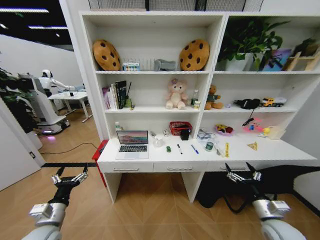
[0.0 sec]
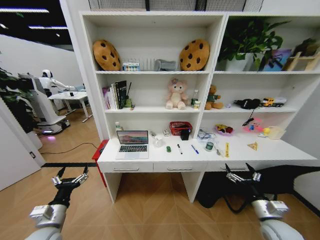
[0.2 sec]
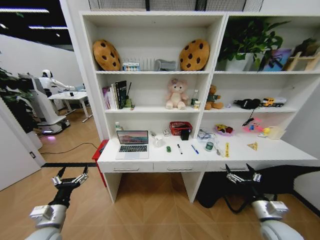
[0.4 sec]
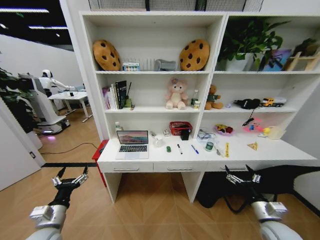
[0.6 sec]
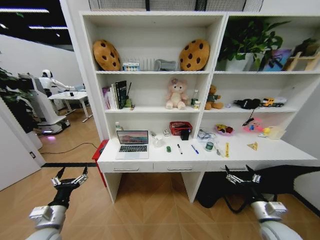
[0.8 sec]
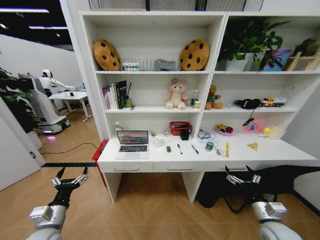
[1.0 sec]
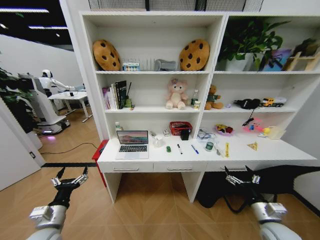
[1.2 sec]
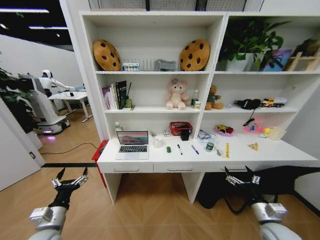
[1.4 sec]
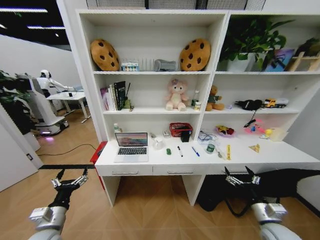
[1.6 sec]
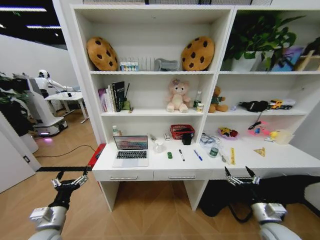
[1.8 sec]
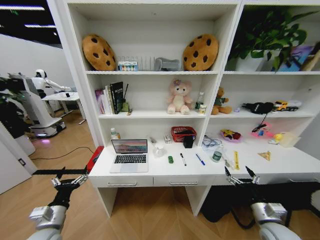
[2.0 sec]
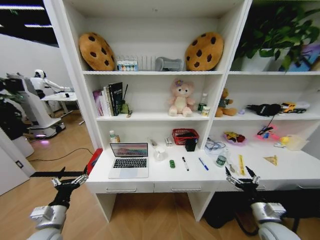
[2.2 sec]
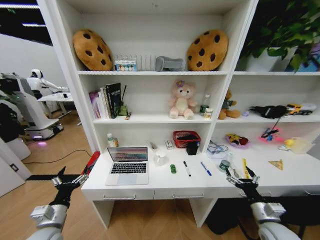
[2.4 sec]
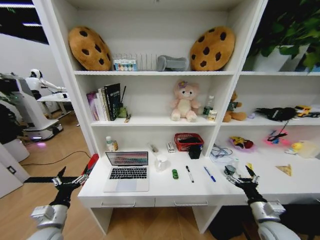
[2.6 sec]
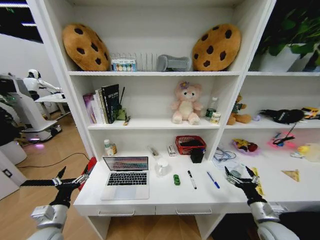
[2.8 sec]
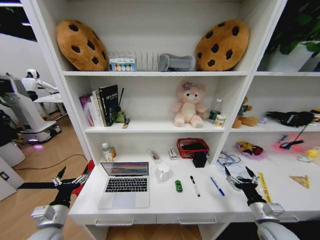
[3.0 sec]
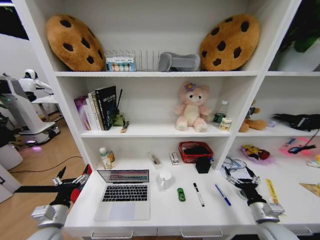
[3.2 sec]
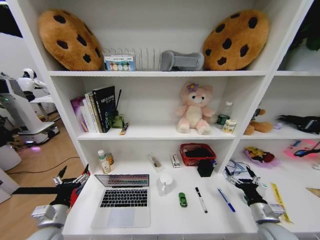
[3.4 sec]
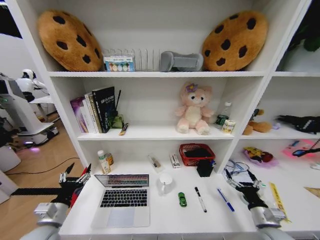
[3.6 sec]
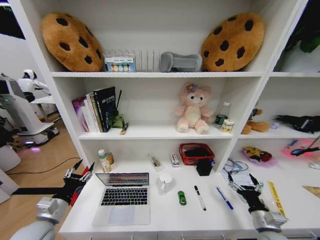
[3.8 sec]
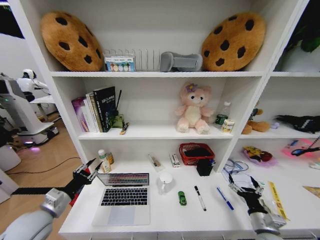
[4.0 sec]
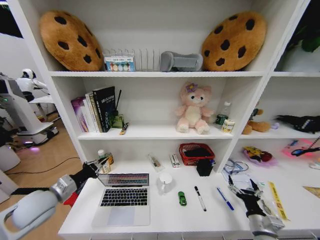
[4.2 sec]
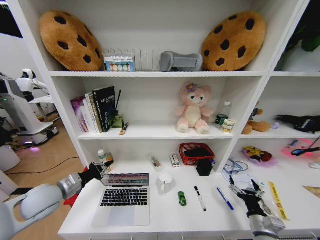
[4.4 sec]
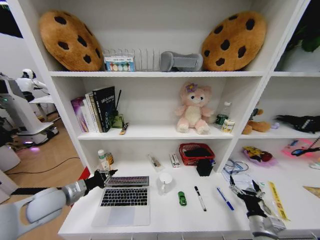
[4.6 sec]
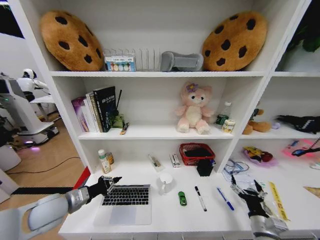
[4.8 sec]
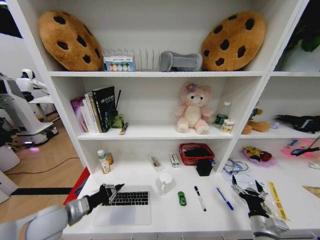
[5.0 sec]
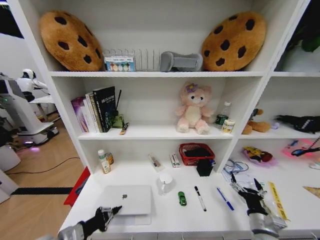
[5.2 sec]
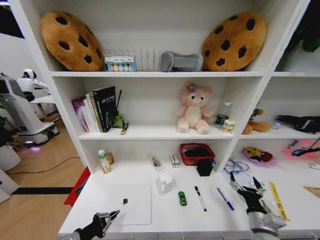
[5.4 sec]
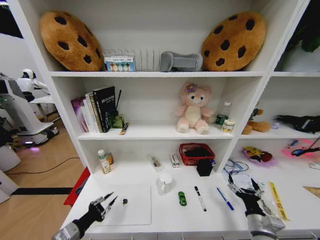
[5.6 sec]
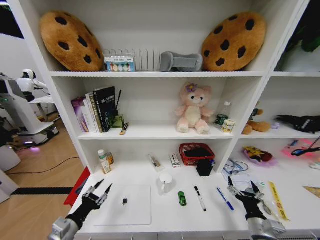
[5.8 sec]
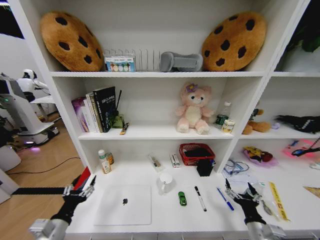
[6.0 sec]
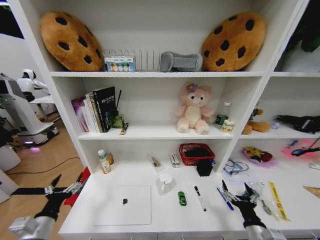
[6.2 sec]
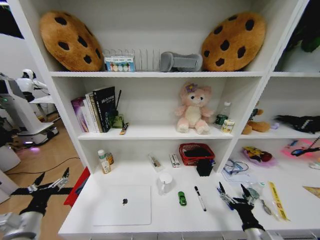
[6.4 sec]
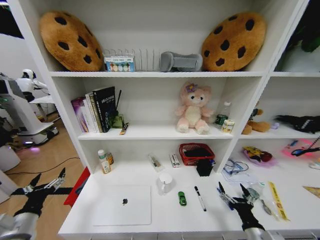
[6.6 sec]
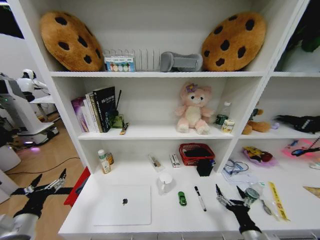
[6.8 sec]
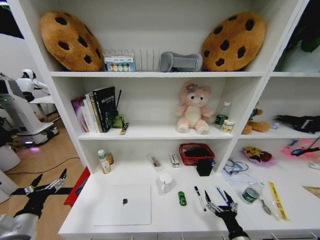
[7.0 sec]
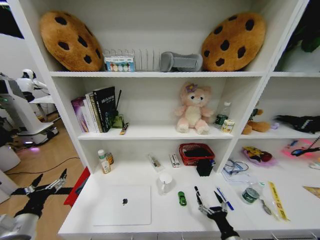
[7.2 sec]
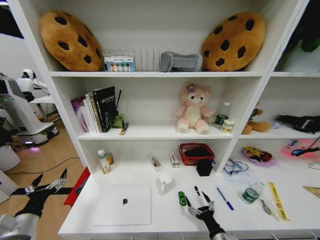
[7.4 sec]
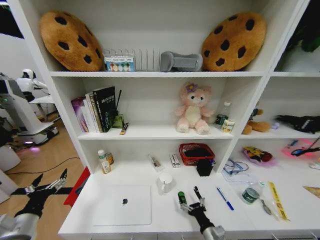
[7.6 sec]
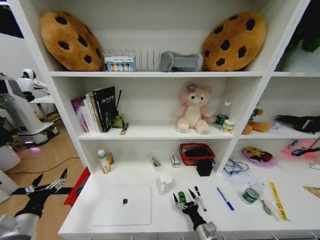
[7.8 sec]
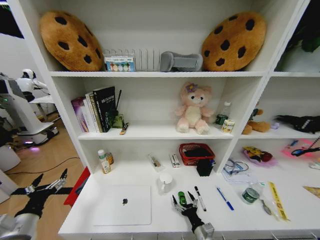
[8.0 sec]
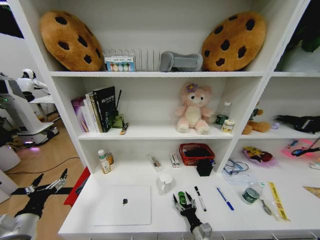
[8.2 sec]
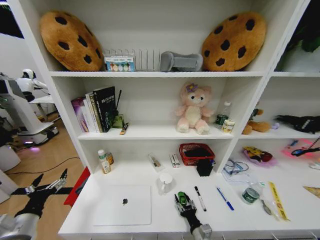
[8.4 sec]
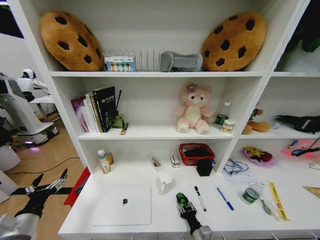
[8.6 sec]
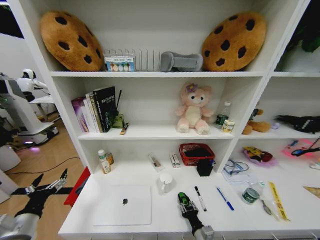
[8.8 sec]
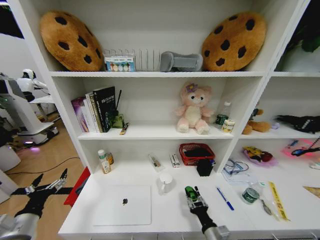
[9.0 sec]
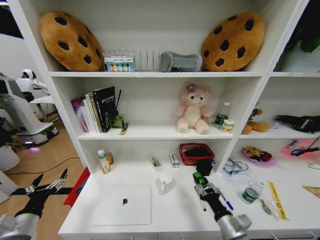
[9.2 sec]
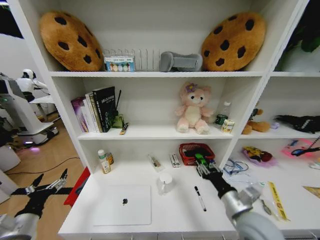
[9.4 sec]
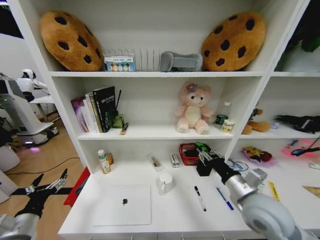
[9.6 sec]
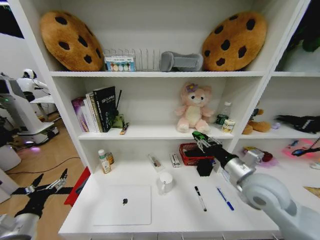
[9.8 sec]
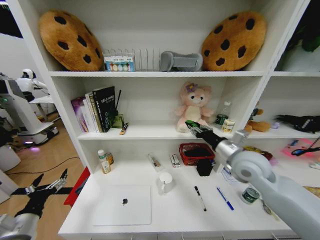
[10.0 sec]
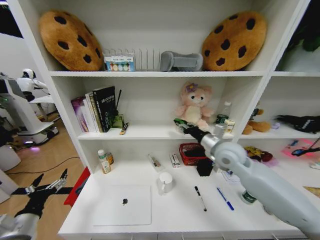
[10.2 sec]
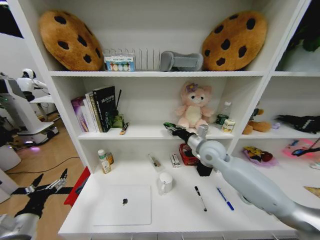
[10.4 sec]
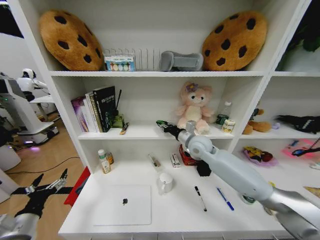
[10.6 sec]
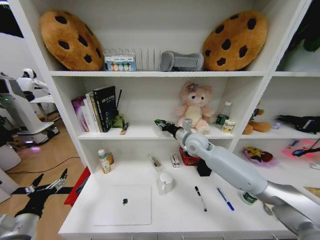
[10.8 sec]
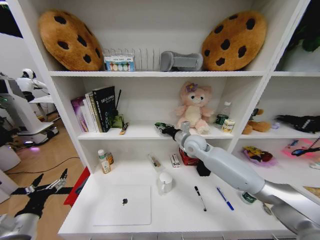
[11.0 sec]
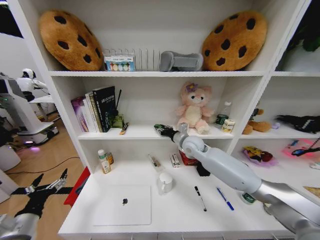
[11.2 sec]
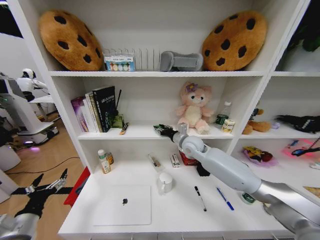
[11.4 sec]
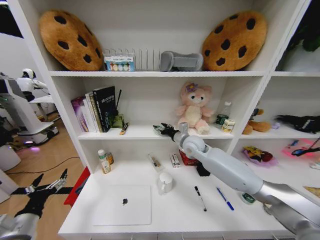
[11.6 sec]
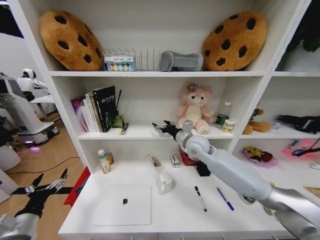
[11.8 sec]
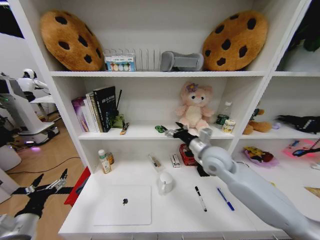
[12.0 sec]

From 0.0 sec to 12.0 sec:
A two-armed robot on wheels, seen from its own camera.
Task of the whole recording: Organize the objects on the table.
From 3.0 sec to 4.4 sec: The right gripper moves about 5 cm. Meanwhile the left gripper heads forward and upward, covering about 15 cm, and closes.
From 4.4 sec to 6.0 sec: The left gripper goes approximately 15 cm backward and downward, and opens up.
From 6.0 sec to 7.6 sec: The right gripper moves to the left and downward, roughly 15 cm; the left gripper moves to the left, roughly 10 cm.
From 7.6 sec to 9.0 sec: The right gripper closes.
From 9.0 sec to 10.4 sec: The right gripper goes approximately 40 cm forward and upward.
From 10.4 sec to 12.0 sec: The right gripper opens up.

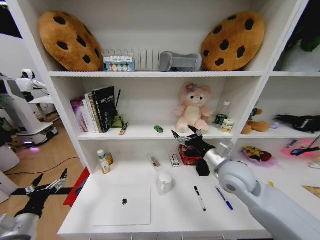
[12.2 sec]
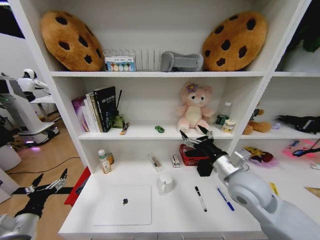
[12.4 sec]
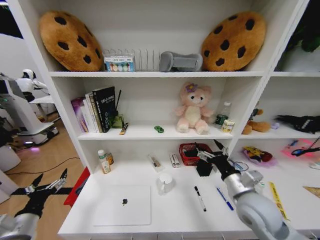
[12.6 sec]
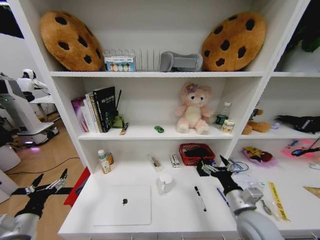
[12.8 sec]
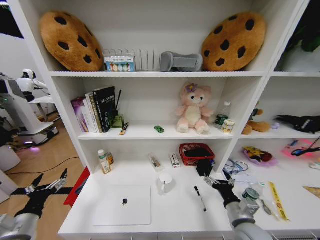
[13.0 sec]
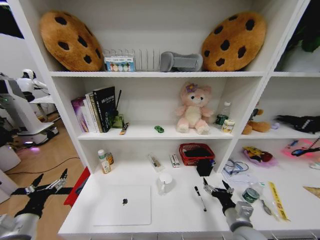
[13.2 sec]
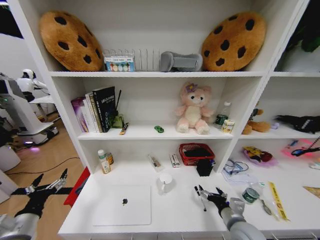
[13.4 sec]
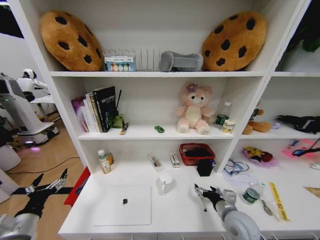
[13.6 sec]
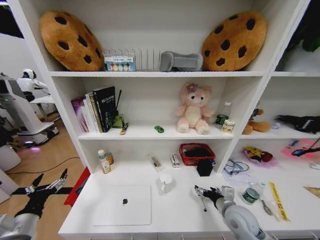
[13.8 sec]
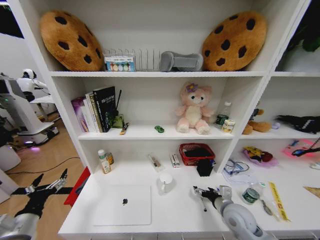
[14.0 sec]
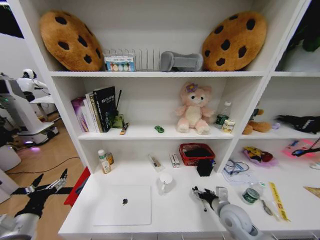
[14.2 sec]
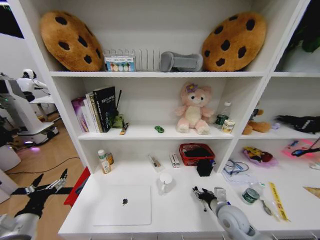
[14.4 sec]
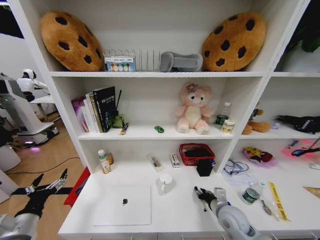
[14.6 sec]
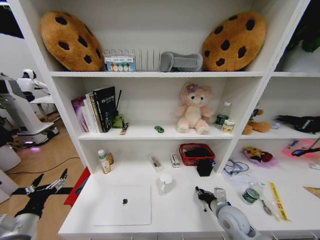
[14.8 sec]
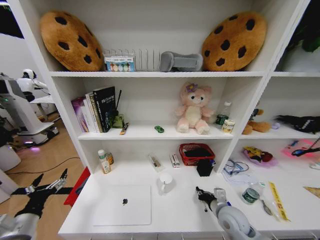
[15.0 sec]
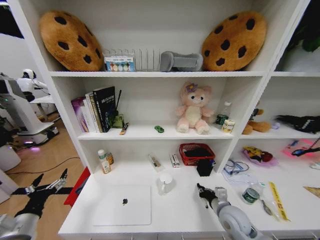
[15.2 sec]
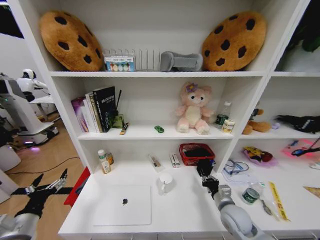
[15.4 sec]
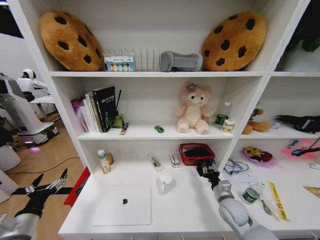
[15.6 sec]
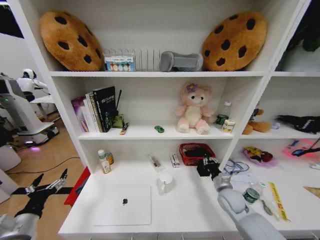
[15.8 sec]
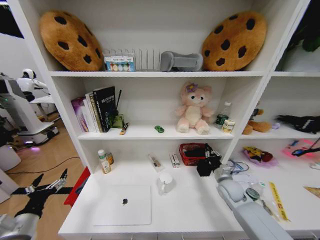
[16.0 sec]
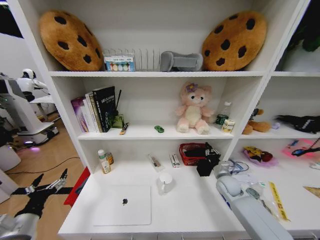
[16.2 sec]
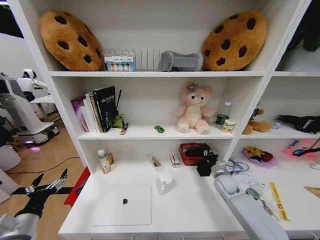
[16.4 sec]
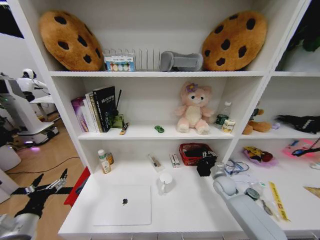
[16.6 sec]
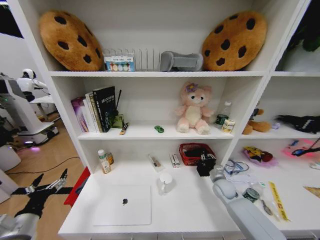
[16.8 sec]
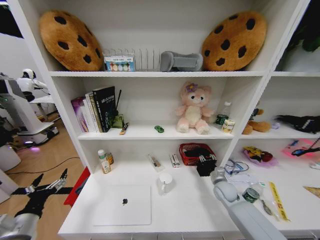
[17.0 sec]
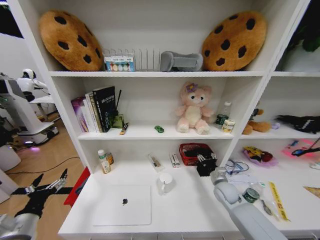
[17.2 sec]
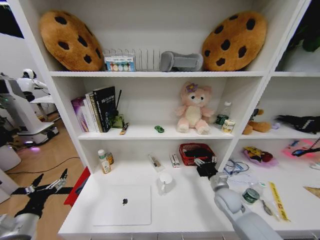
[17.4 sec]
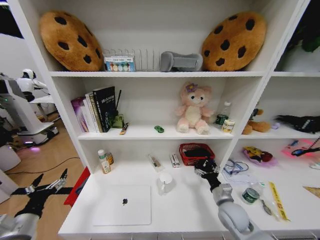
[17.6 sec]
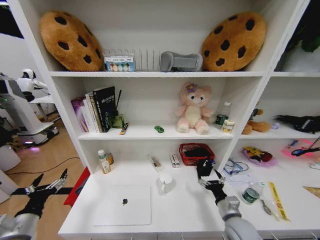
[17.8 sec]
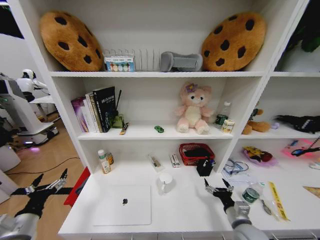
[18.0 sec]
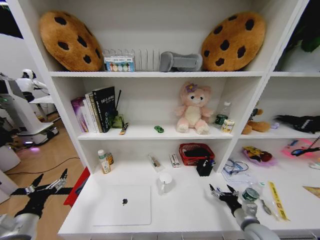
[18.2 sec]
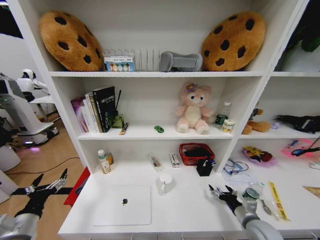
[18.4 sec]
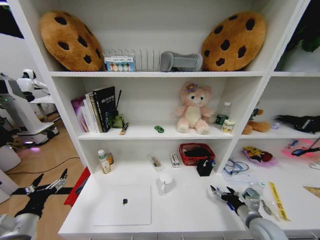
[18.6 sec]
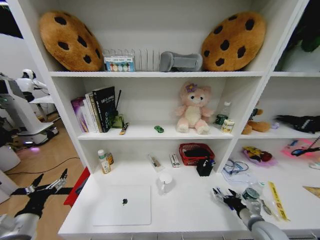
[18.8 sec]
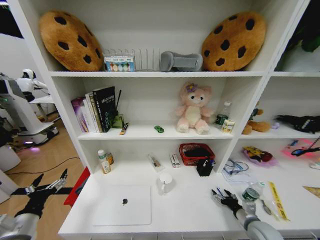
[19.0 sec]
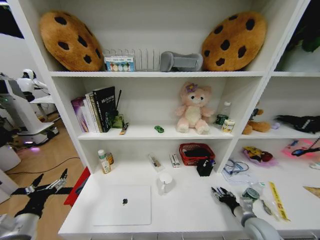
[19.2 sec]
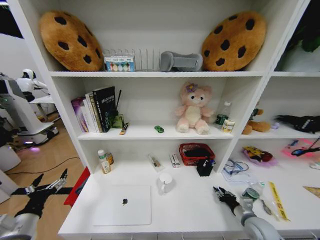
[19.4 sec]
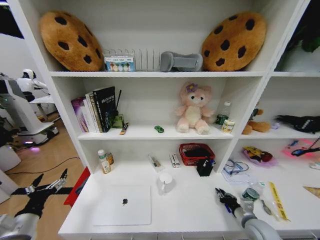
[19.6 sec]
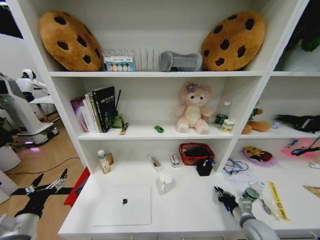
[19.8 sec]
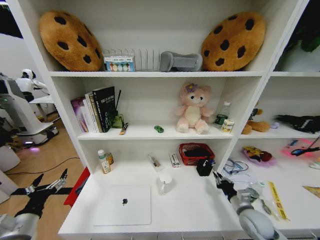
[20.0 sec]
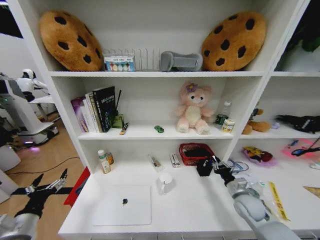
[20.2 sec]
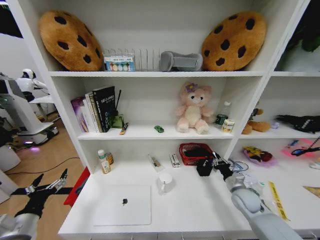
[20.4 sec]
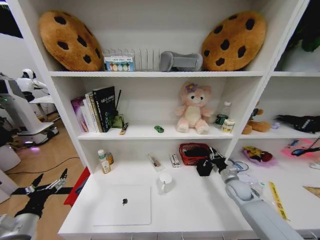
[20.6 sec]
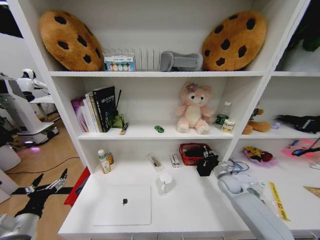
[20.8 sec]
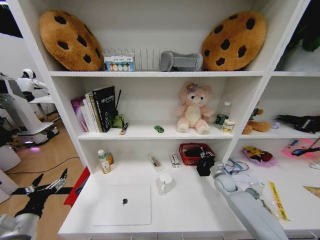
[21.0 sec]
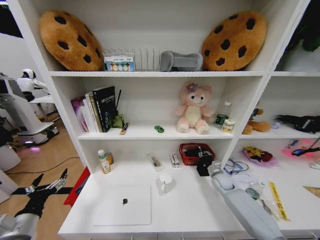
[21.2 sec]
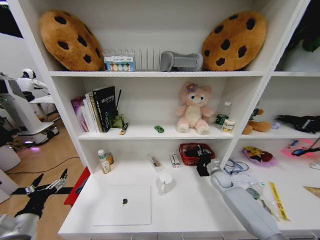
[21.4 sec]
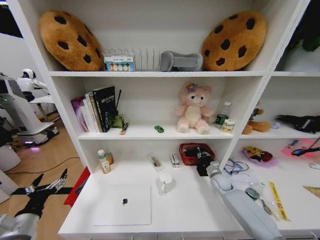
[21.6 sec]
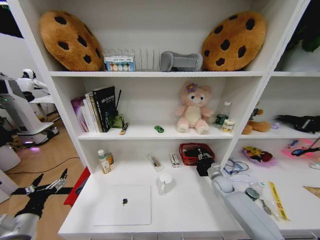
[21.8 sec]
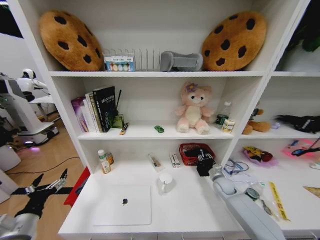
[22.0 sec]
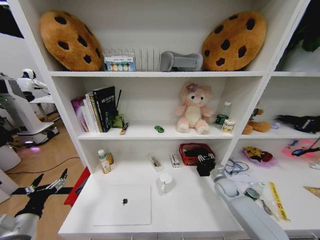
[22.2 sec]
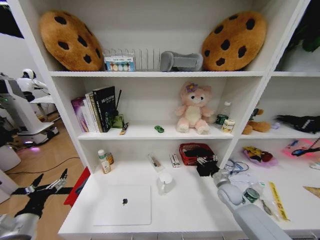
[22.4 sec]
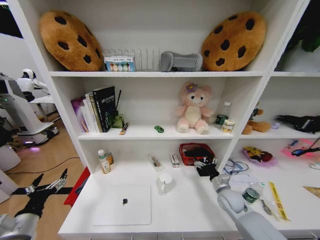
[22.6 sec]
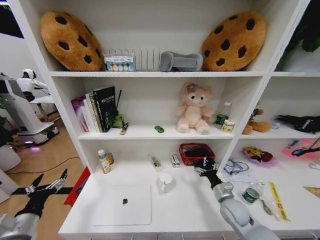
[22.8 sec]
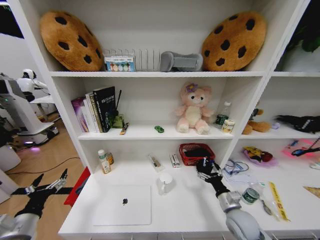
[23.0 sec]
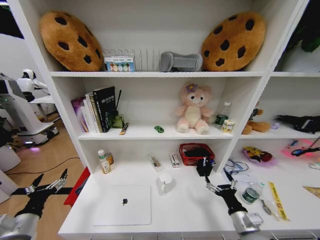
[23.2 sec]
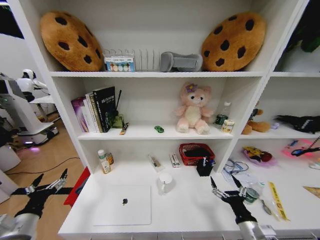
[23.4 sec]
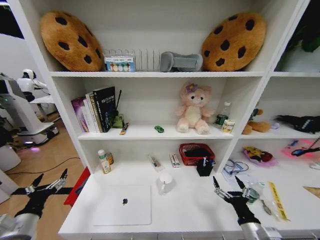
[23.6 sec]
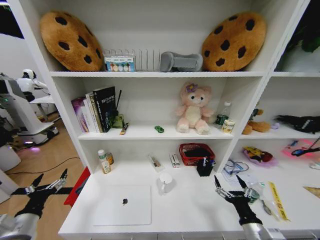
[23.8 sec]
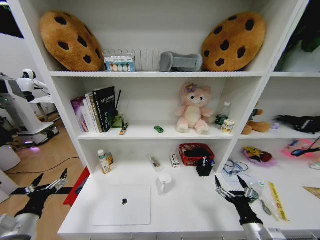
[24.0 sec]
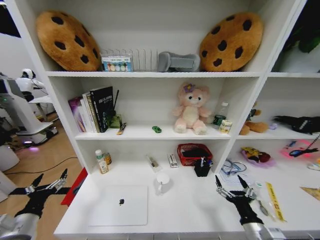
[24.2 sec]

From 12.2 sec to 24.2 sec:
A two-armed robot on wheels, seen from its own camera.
Task of the whole recording: Organize the objects on the table.
From 12.2 sec to 13.8 sec: The right gripper travels downward and backward by roughly 20 cm.
From 13.8 sec to 15.2 sec: The right gripper closes up.
From 15.2 sec to 16.6 sec: The right gripper heads forward and to the right, covering about 15 cm.
From 16.6 sec to 18.2 sec: The right gripper moves backward, roughly 20 cm, and opens.
From 18.2 sec to 19.8 sec: The right gripper changes place by roughly 5 cm, and closes.
From 19.8 sec to 21.2 sec: The right gripper shifts roughly 20 cm forward.
From 21.2 sec to 22.6 sec: The right gripper is displaced backward by about 10 cm, and opens its fingers.
From 22.6 sec to 24.2 sec: The right gripper travels backward by about 20 cm.
